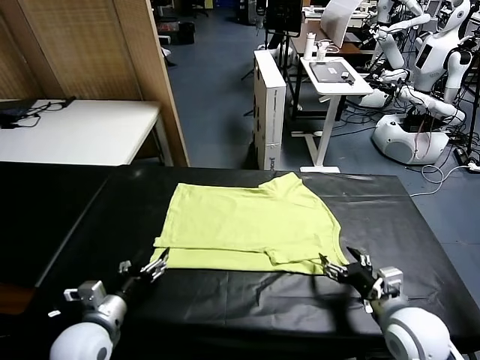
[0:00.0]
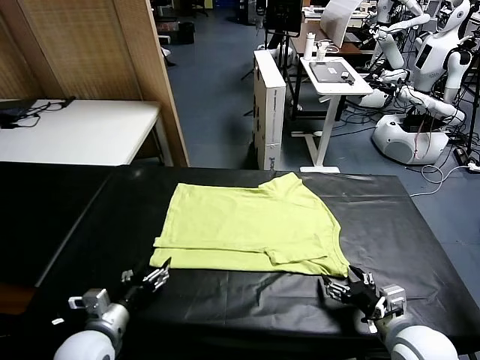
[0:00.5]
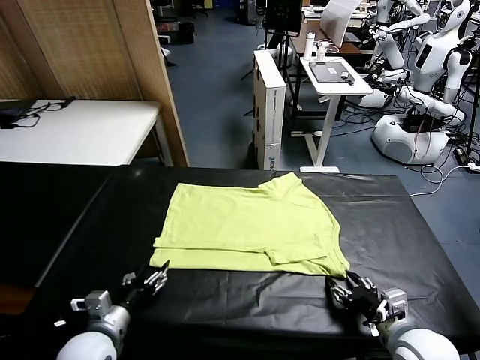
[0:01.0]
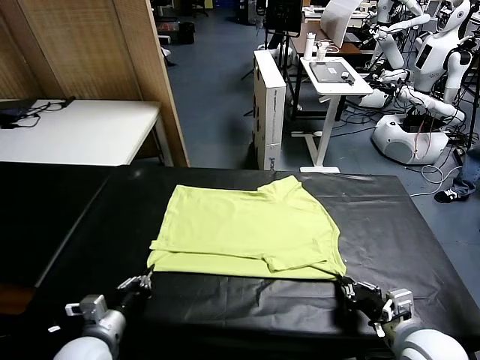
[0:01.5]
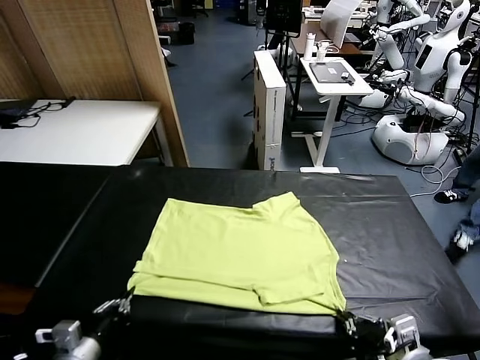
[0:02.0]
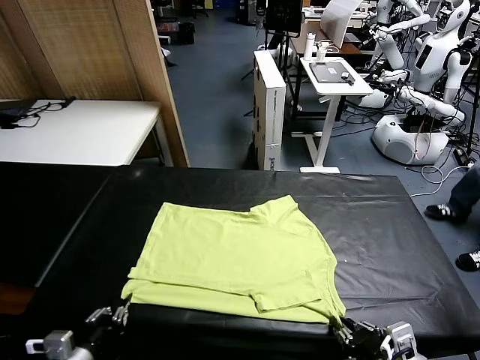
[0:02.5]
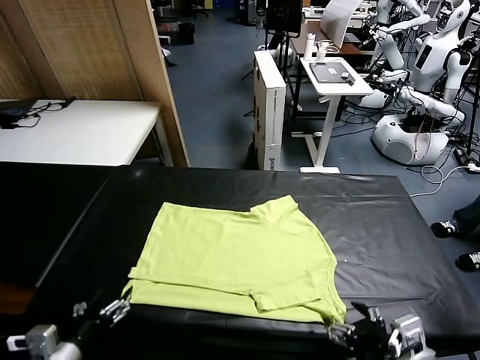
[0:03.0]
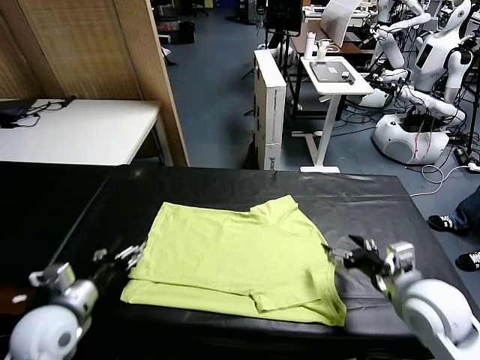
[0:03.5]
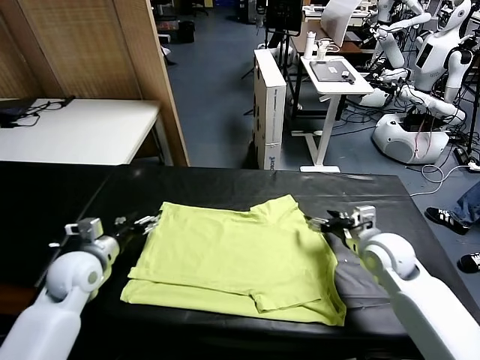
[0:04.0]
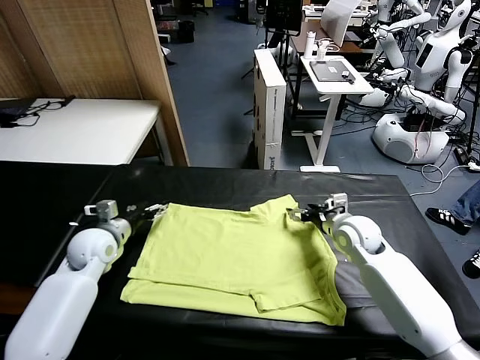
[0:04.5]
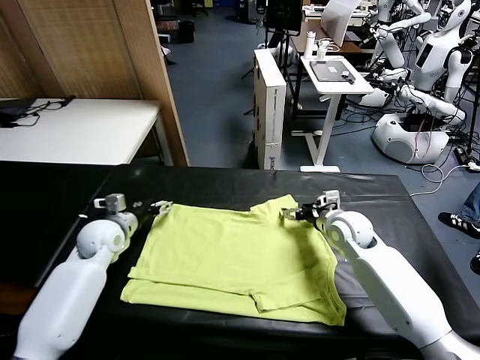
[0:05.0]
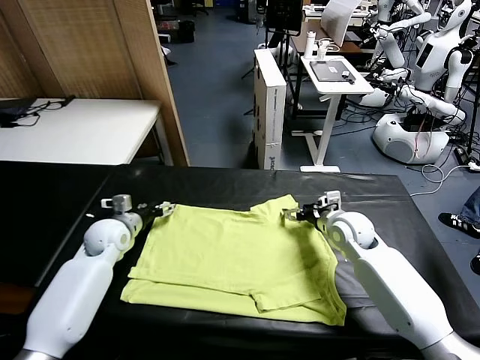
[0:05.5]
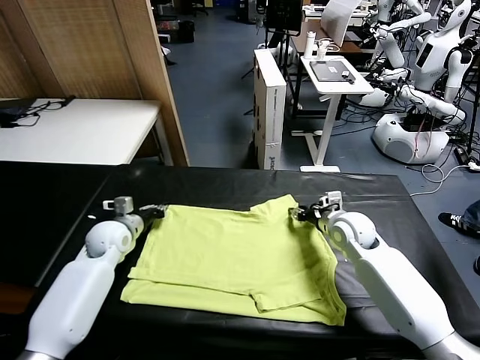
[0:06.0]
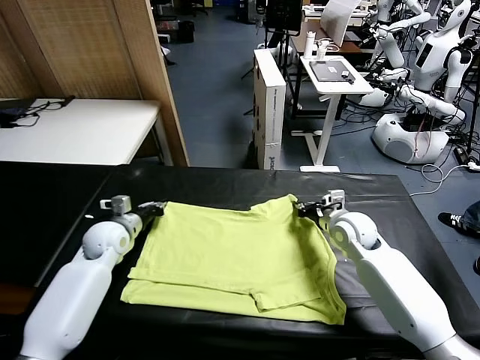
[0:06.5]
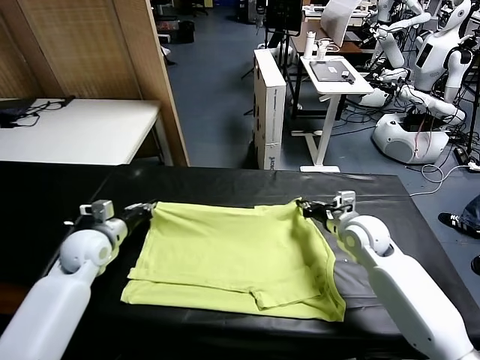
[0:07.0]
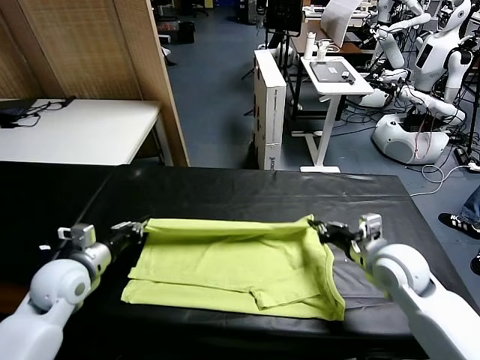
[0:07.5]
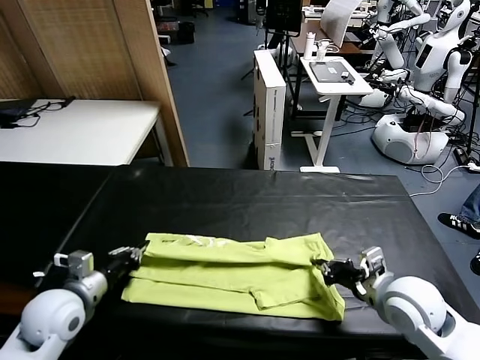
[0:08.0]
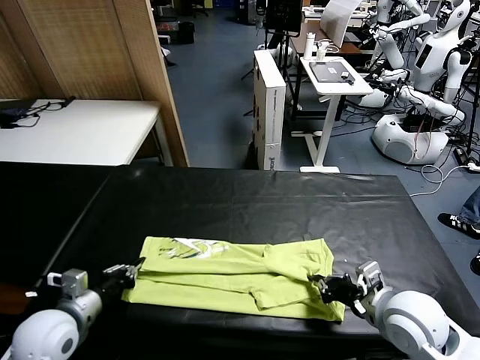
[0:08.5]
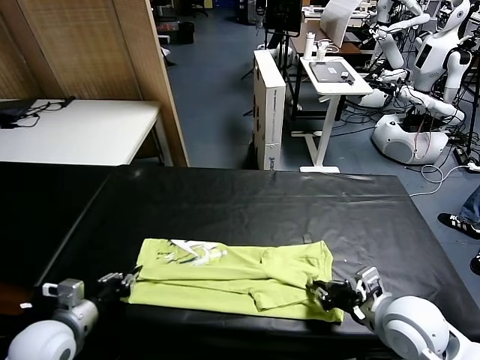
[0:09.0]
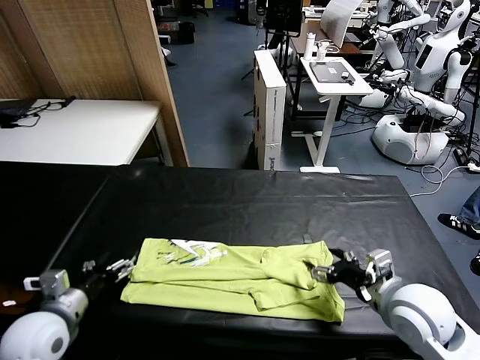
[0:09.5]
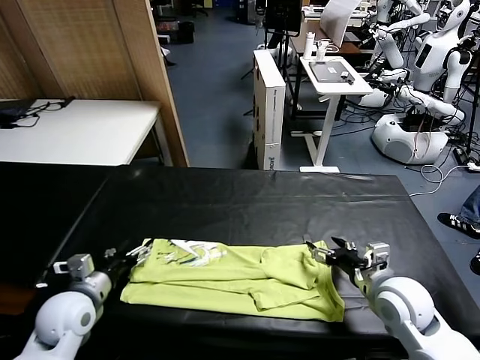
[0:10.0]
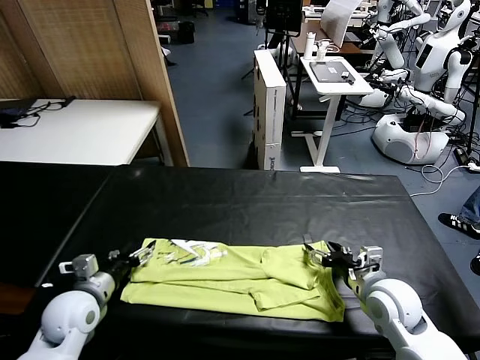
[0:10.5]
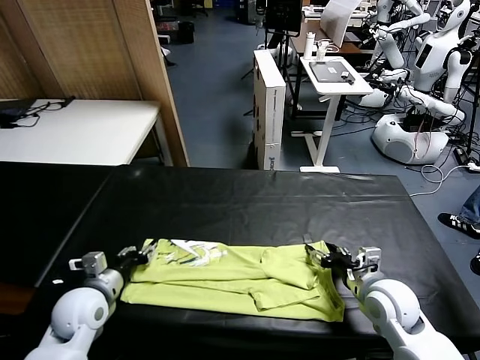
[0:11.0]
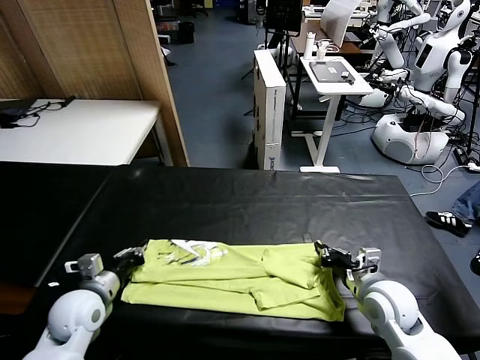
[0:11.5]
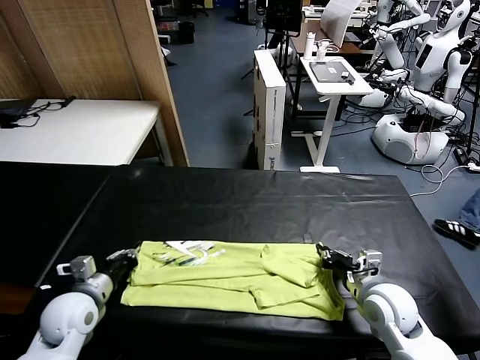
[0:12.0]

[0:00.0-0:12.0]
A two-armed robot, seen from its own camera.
Task of the whole recording: fold and organize the clothes.
Step, 0:00.0 to 0:02.5: Drag the clothes downward with both gripper.
Step, 0:03.0 to 0:06.0: use both grippers simultaneously to clamp the upper edge of the clothing fabric.
Step, 0:06.5 to 0:09.0: use both grippers to drag the upper edge of the fabric backward and fold it over the lower edge.
0:00.0 to 0:02.0: The grippers both shift backward by roughly 5 cm. The right gripper closes. Meanwhile the left gripper closes.
0:02.0 to 0:04.0: Both grippers move forward, about 25 cm. The right gripper opens its fingers; the left gripper opens its fingers.
0:04.0 to 0:06.0: The left gripper shifts approximately 10 cm forward, and closes. The right gripper closes.
0:06.0 to 0:08.0: Both grippers travel together backward, some 20 cm.
0:08.0 to 0:10.0: The right gripper changes place by approximately 5 cm, and opens. The left gripper opens up.
0:10.0 to 0:12.0: The left gripper closes up. Meanwhile the right gripper closes its fingers.

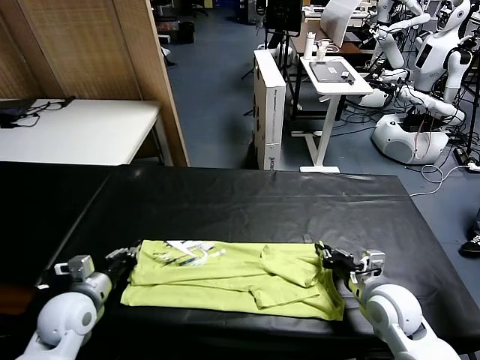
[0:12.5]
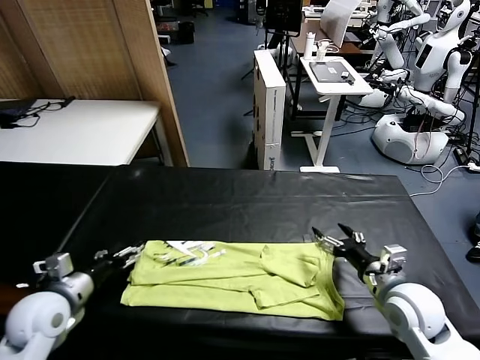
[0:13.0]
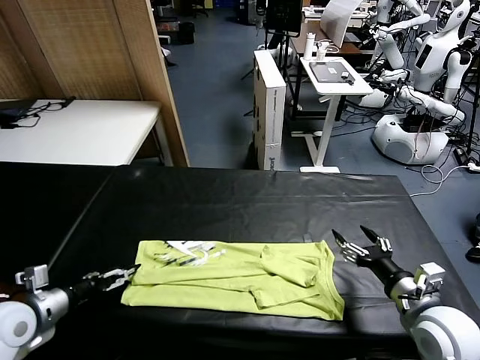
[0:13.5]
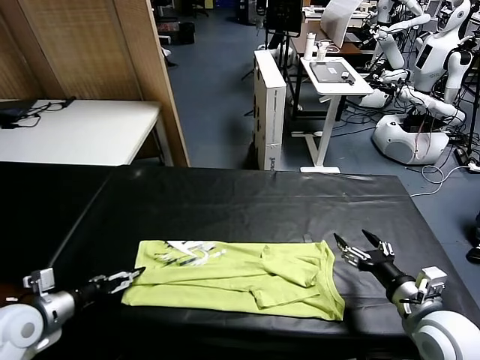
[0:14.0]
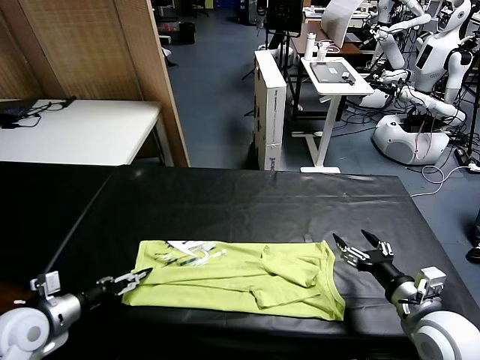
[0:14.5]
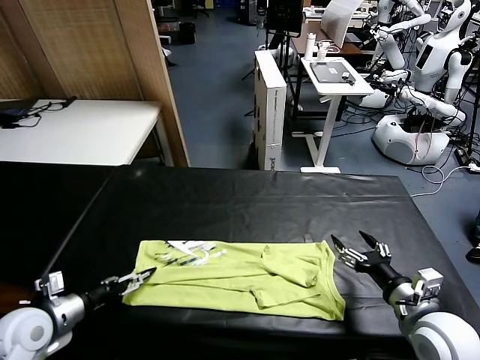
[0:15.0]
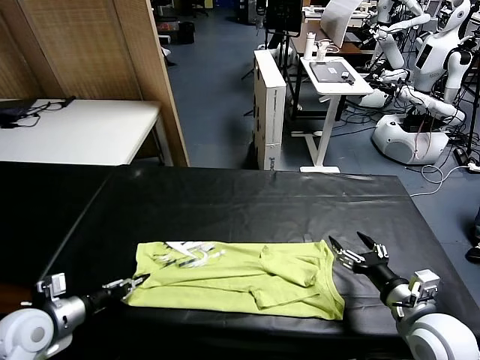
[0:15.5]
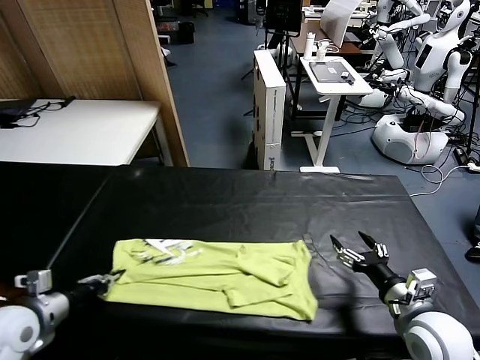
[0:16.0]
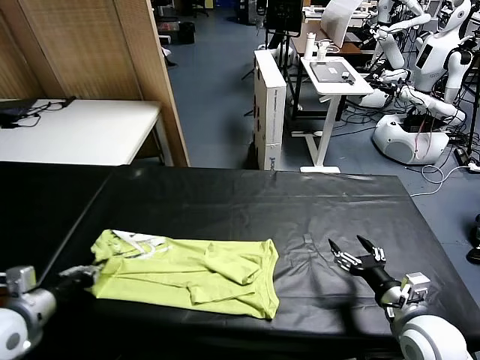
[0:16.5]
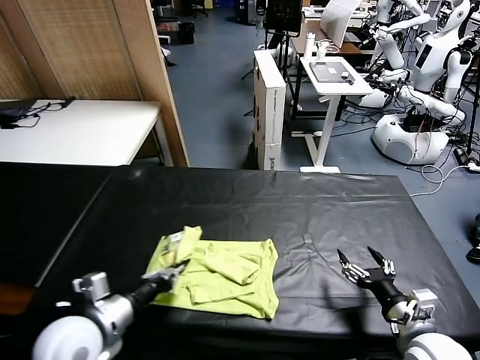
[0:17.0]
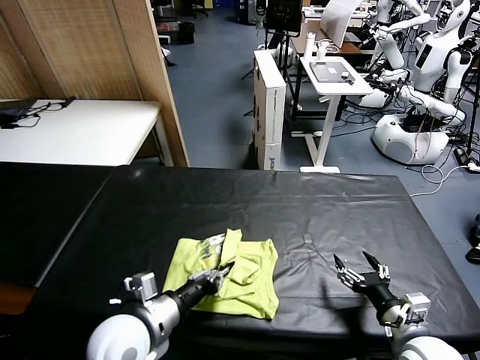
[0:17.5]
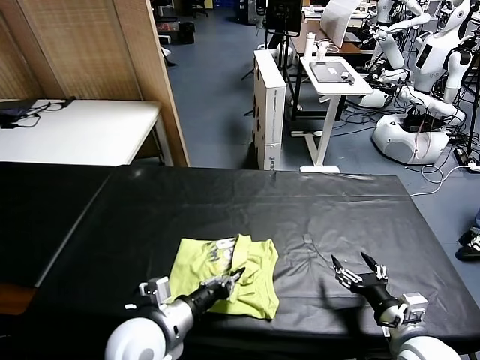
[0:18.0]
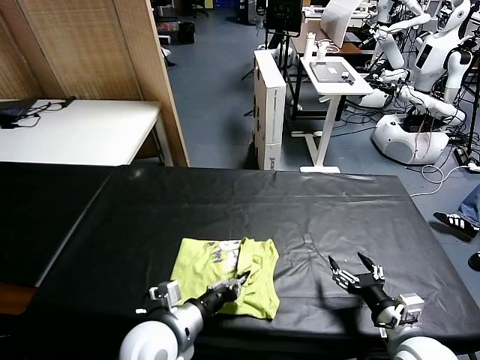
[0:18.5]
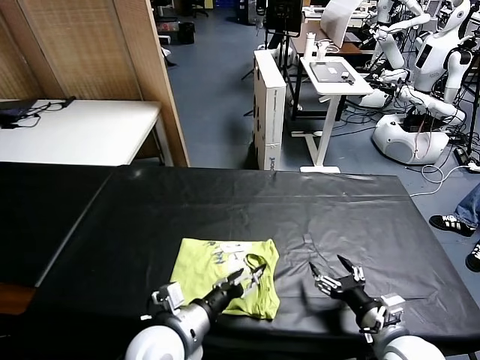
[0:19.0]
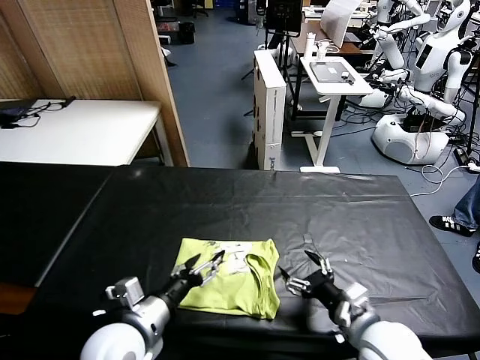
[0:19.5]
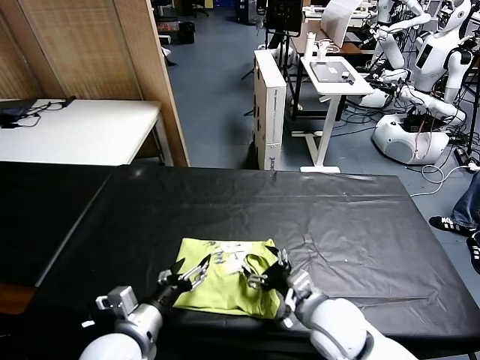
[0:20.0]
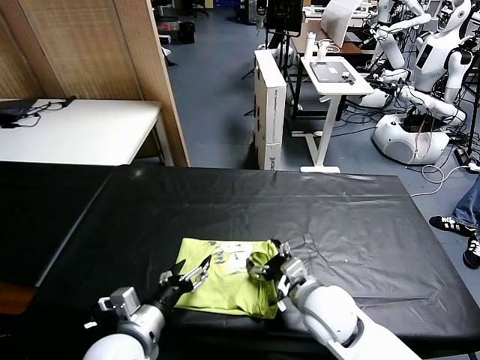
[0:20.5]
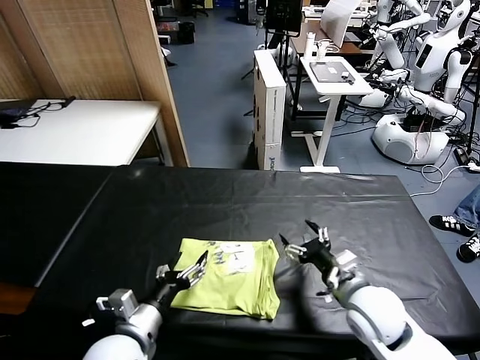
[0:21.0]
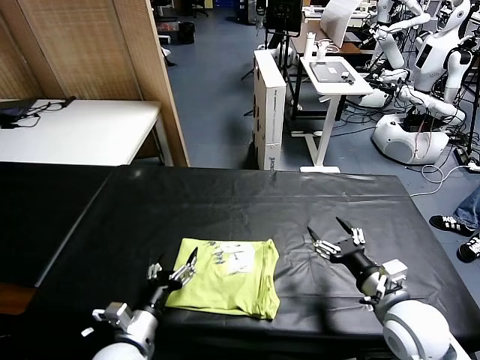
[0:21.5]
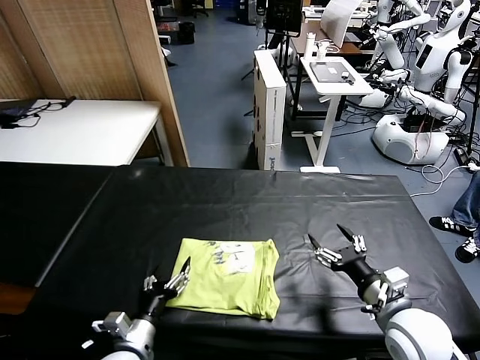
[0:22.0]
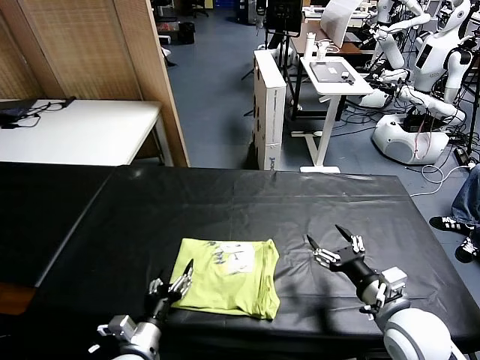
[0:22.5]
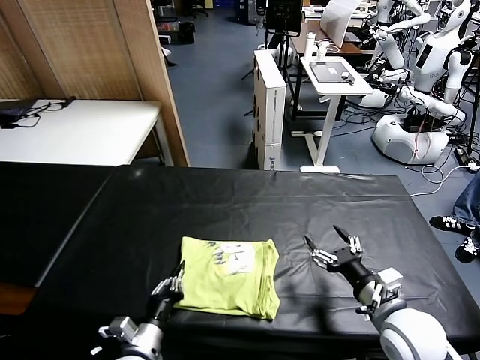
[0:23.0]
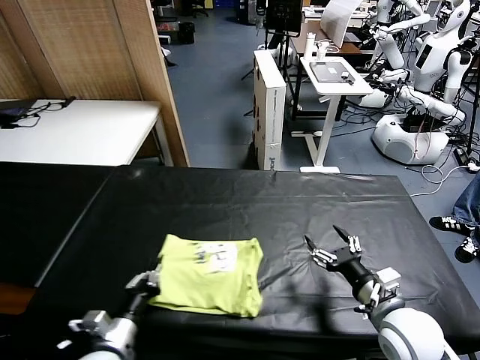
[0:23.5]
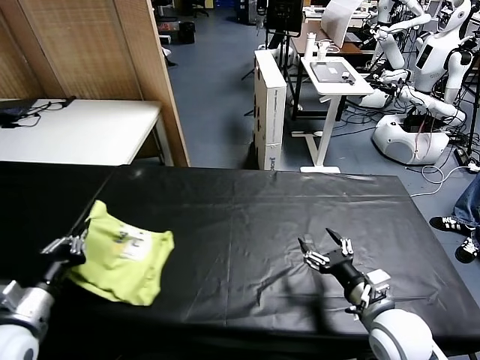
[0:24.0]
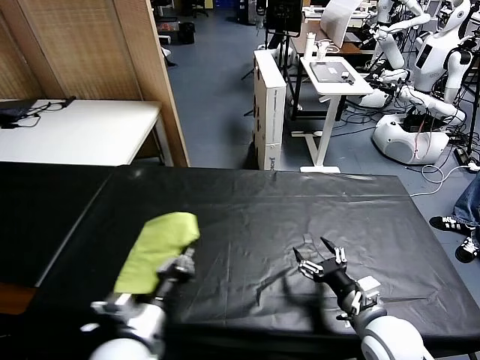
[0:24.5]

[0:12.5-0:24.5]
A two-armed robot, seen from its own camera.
Task of the whole recording: fold and organize the clothes.
Step, 0:12.5 to 0:15.5: use the left gripper to clamp the left edge of the fabric.
Step, 0:16.0 to 0:19.0: use the left gripper to drag the left edge of the fabric to the left and folds it over the right edge.
0:12.5 to 0:14.5: The right gripper travels backward by about 5 cm. The left gripper shifts approximately 5 cm to the left, and opens.
0:14.5 to 0:16.5: The left gripper moves upward, about 5 cm, and closes.
0:16.5 to 0:18.5: The left gripper is displaced to the right by some 20 cm.
0:18.5 to 0:20.5: The left gripper heads to the left, covering about 5 cm, and opens up; the right gripper goes about 15 cm to the left and forward.
0:20.5 to 0:22.5: The right gripper goes about 10 cm to the right and backward, while the left gripper shifts roughly 10 cm downward.
0:22.5 to 0:24.5: The right gripper changes place by approximately 5 cm. The left gripper goes some 5 cm upward, travels to the left and back again, roughly 15 cm each way, and closes its fingers.

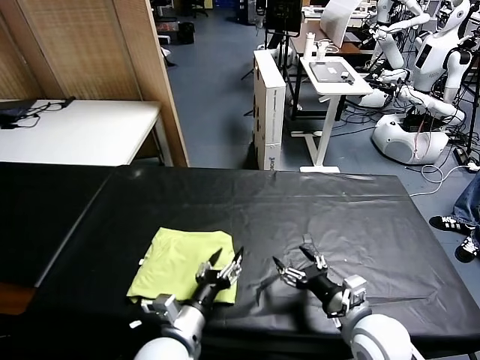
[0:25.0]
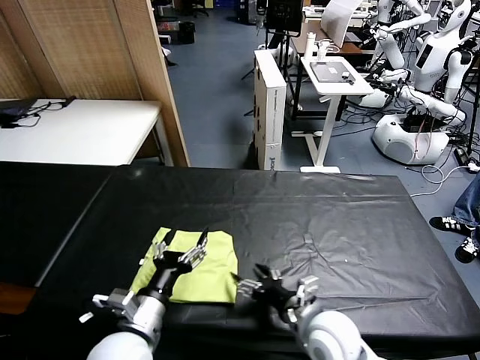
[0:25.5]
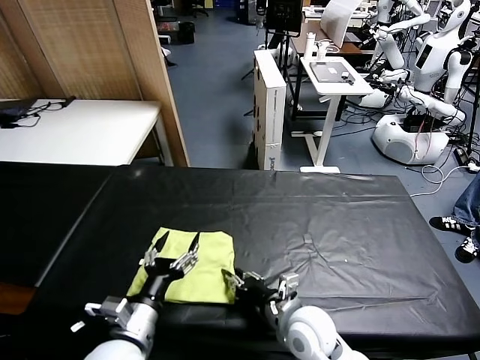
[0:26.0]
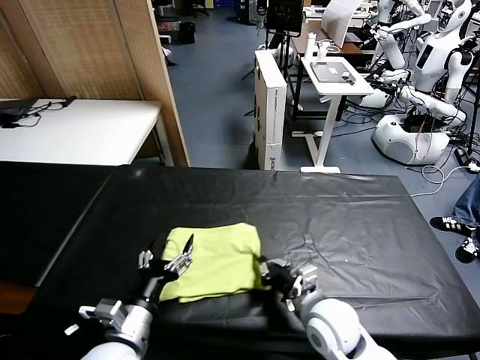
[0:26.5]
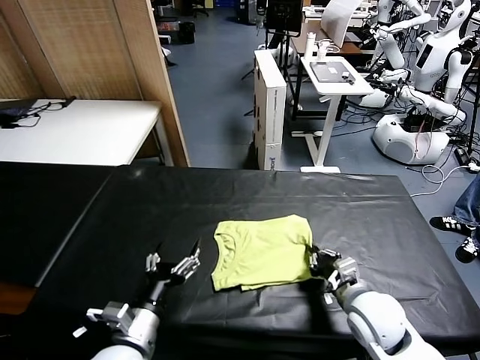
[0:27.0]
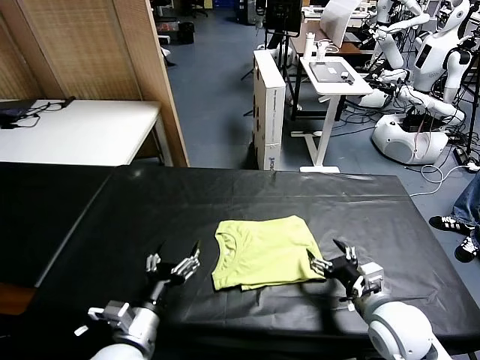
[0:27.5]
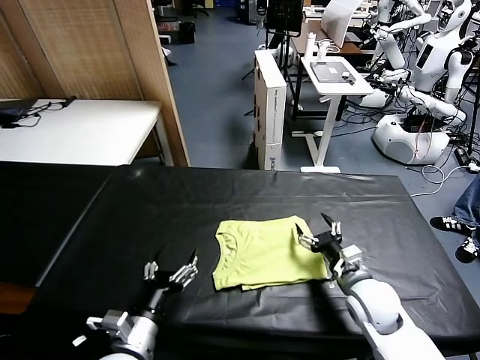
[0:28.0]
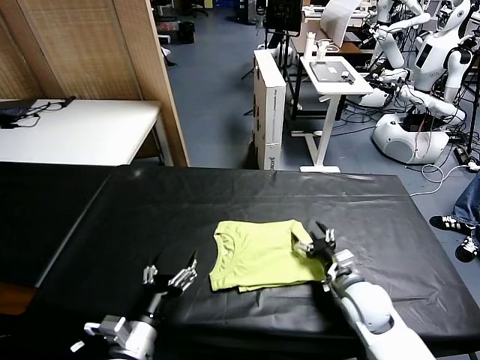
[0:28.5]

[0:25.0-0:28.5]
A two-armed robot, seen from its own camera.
Task of the whole recording: fold and organize the clothes.
Step, 0:25.5 to 0:27.0: Drag the clothes to the center of the table.
0:25.0 to 0:27.0: The left gripper shifts some 5 cm to the left, while the right gripper travels to the left and back again, some 10 cm each way, and closes up.
0:27.0 to 0:28.5: The right gripper moves approximately 5 cm, and opens up.
